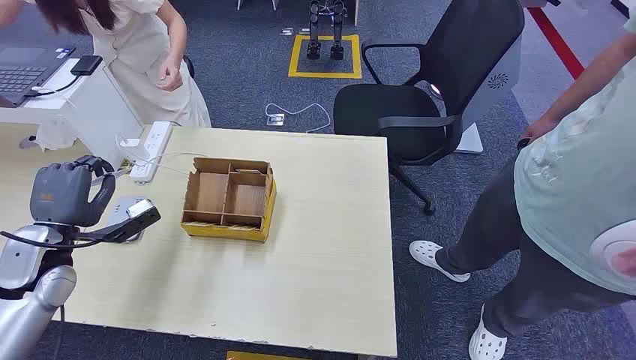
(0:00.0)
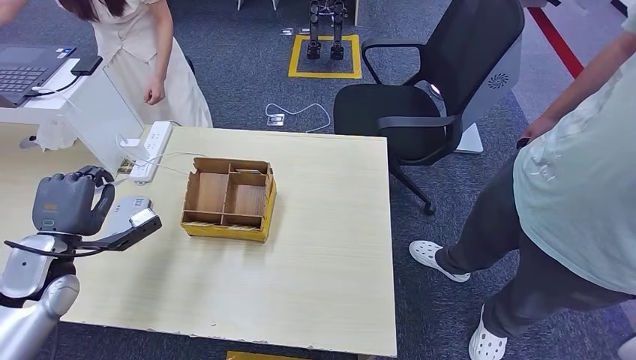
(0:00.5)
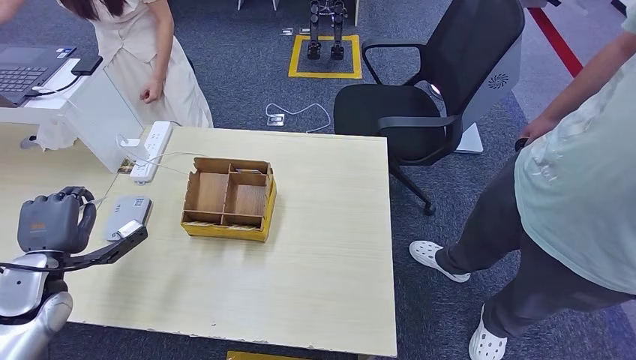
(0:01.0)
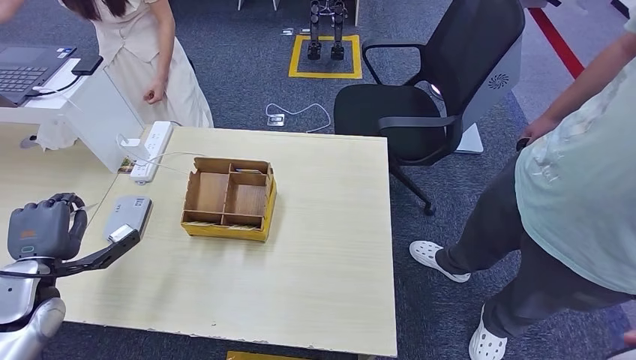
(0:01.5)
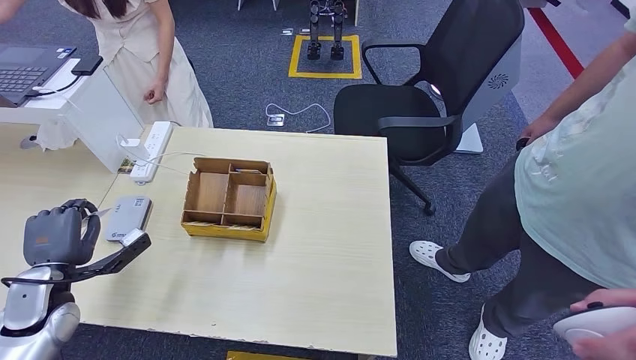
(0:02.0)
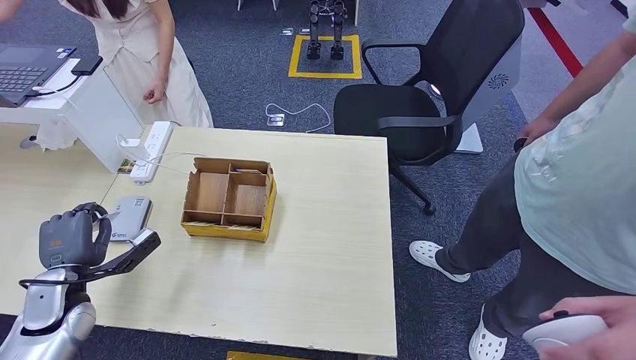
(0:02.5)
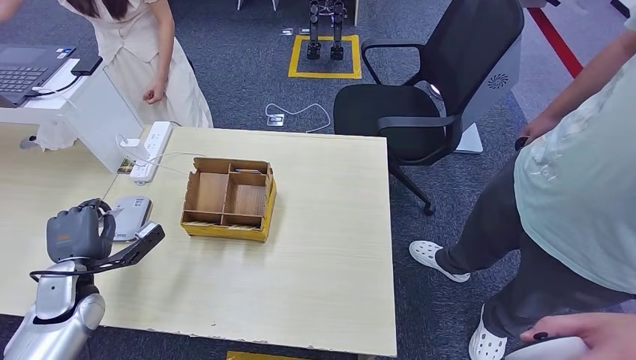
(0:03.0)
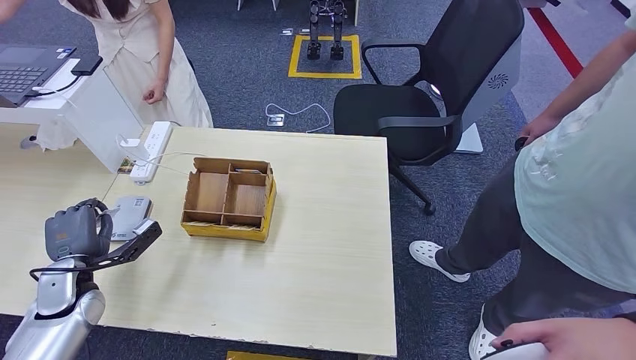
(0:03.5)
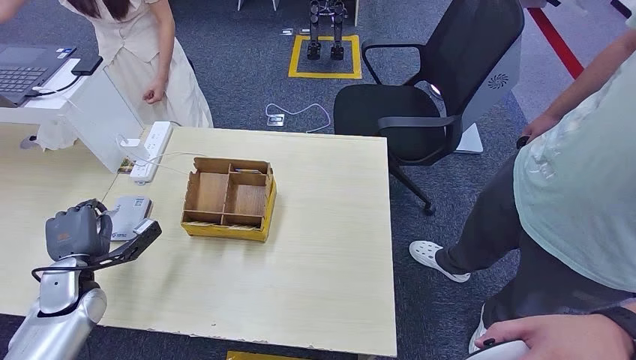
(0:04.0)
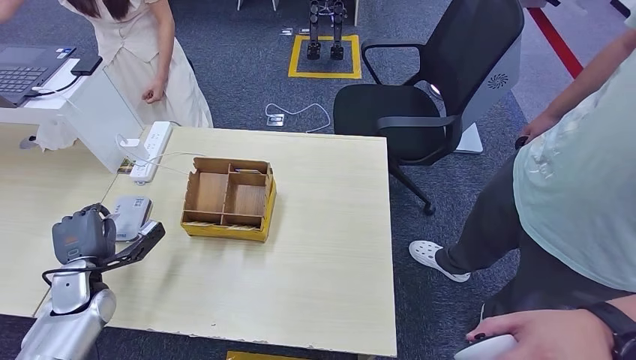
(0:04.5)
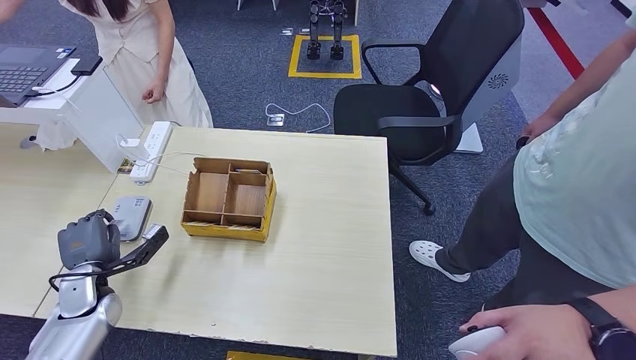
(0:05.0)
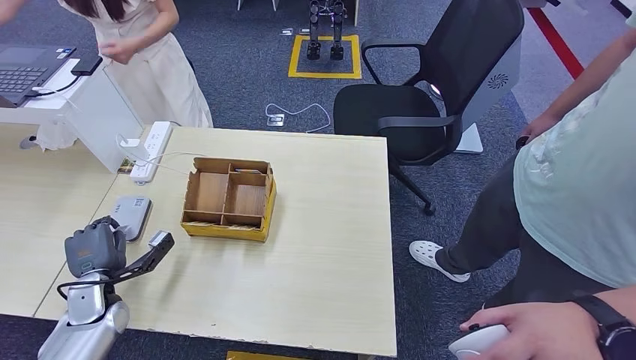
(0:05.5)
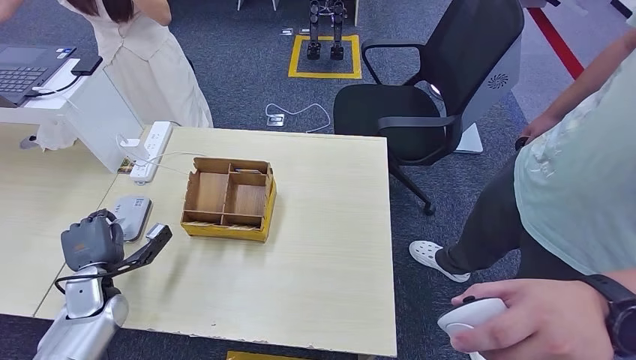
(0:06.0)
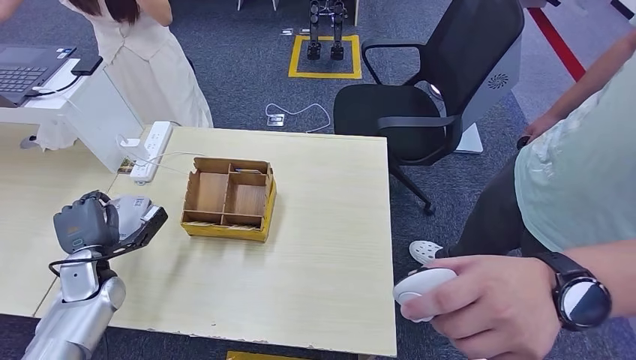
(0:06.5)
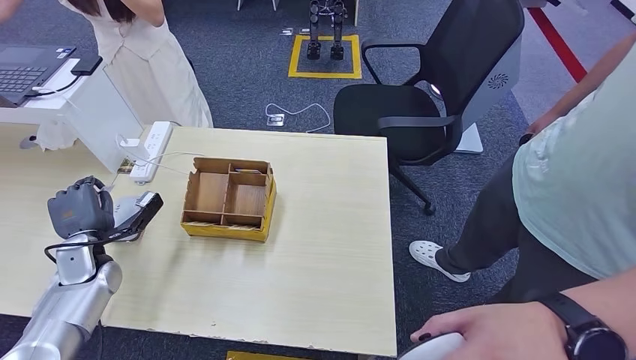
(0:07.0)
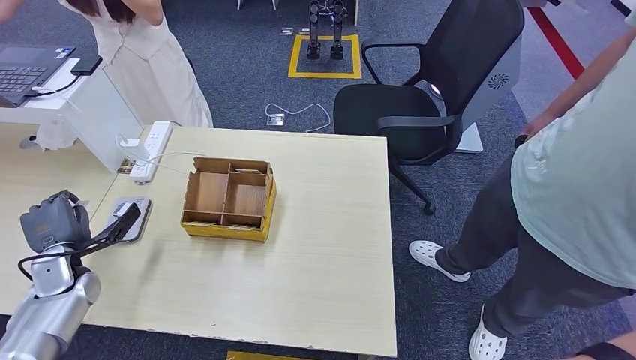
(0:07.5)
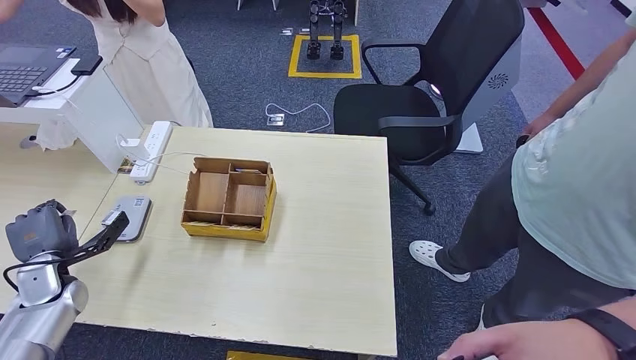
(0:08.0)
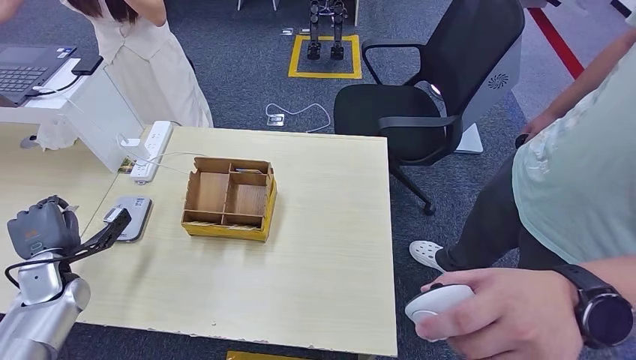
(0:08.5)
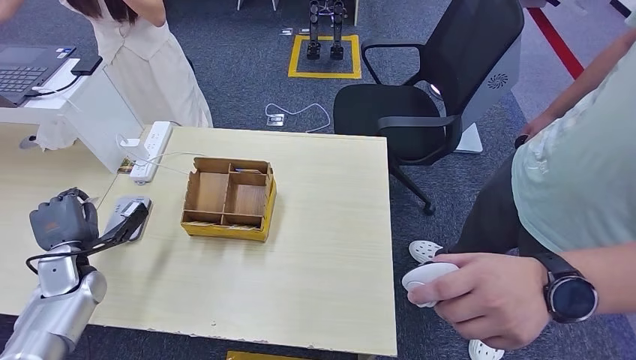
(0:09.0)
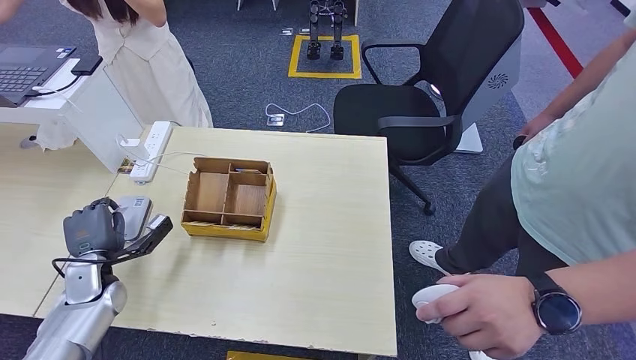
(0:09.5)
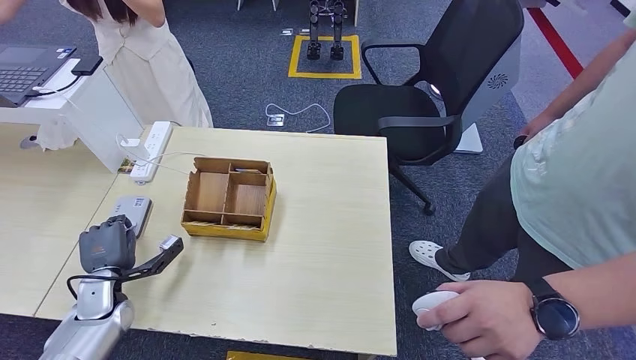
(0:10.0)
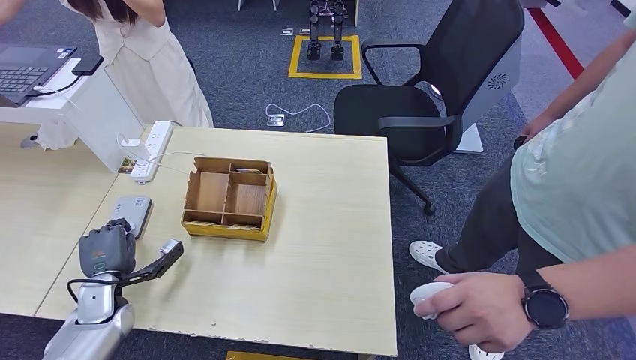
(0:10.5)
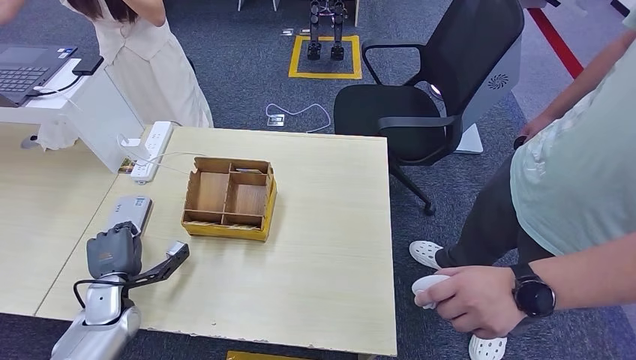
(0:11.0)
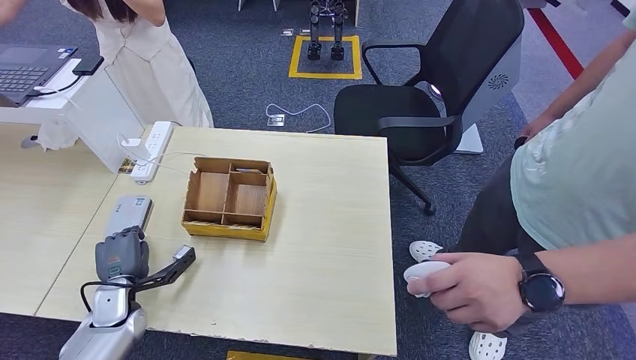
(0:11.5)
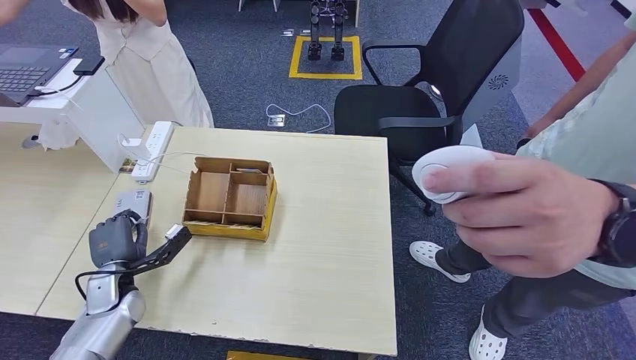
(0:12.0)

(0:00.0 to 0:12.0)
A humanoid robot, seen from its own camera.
Step, 0:00.0 - 0:01.0: Take the ID card from the person's hand.
Step, 0:01.5 - 0:07.0: Place the ID card on the card reader.
0:02.0 - 0:04.0: The hands move only a little.
0:04.0 - 0:06.0: The hands stay close to where they were, moving slightly.
0:06.0 - 0:08.0: The left hand goes some 5 cm to the left.
0:08.0 - 0:10.0: The left hand moves to the right, approximately 10 cm.
0:10.0 - 0:12.0: The hands move only a little.

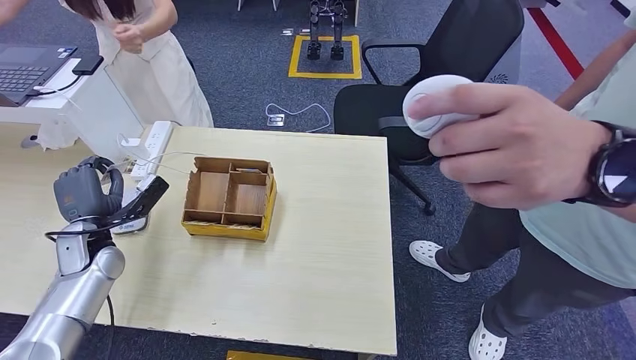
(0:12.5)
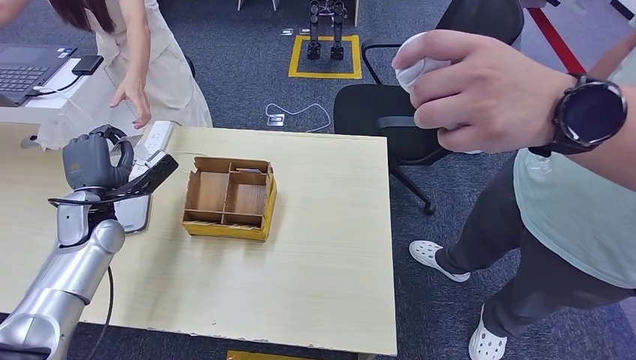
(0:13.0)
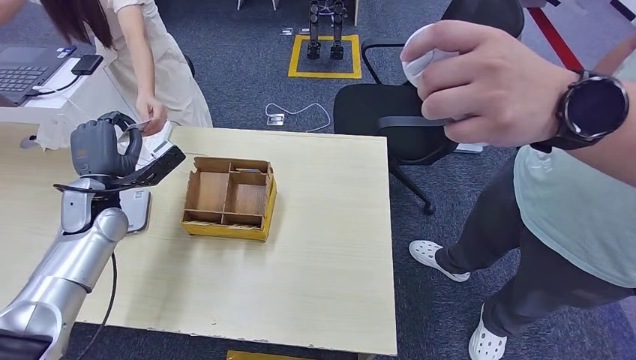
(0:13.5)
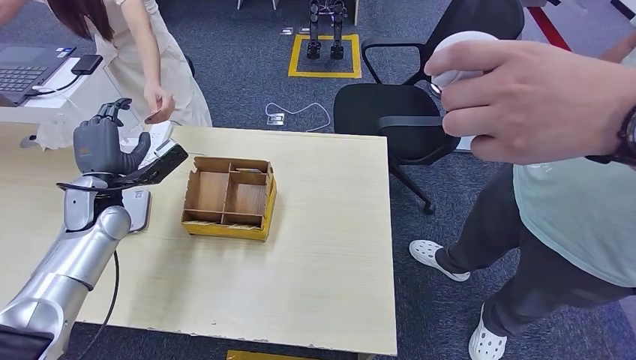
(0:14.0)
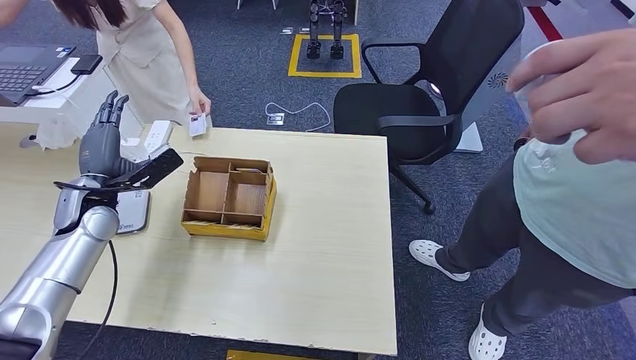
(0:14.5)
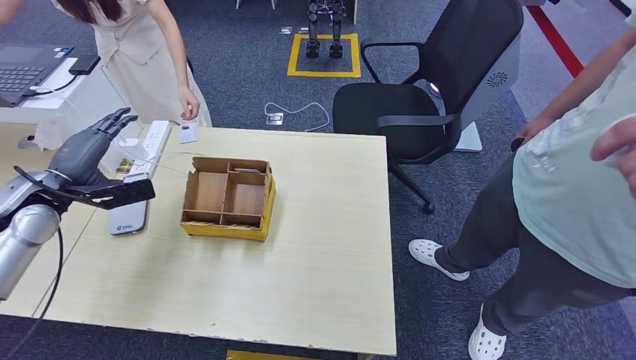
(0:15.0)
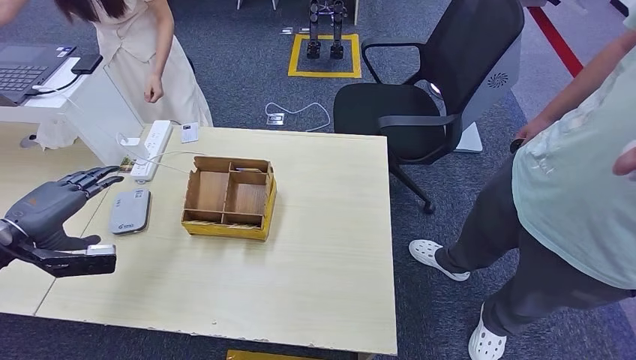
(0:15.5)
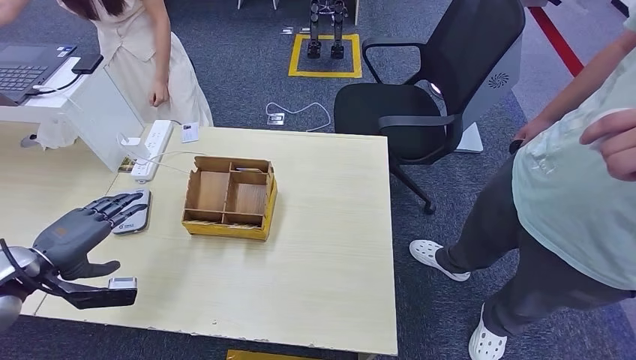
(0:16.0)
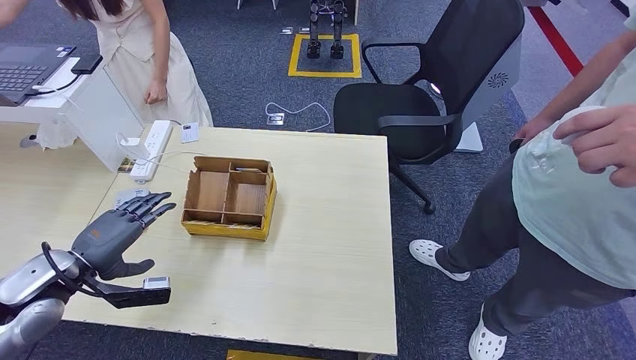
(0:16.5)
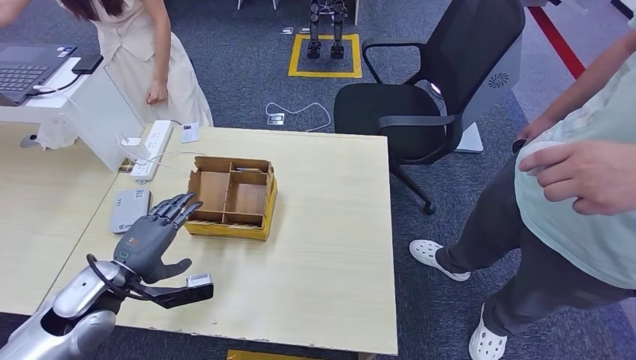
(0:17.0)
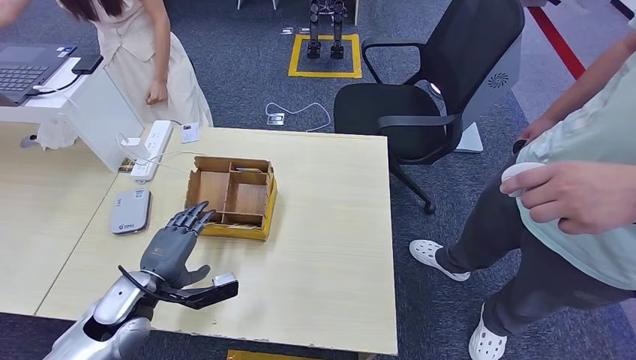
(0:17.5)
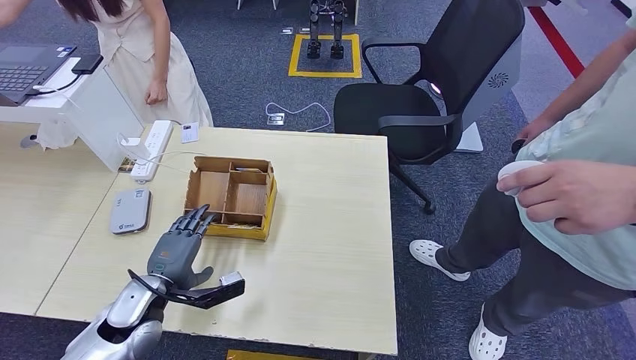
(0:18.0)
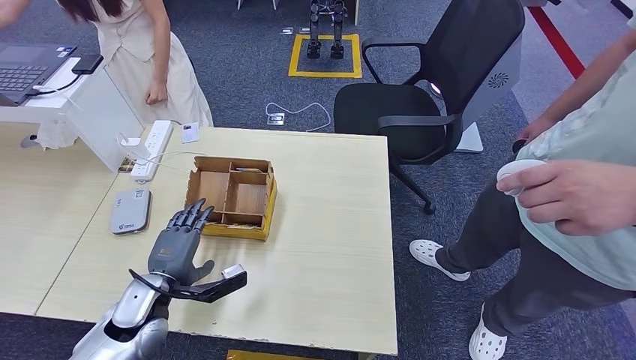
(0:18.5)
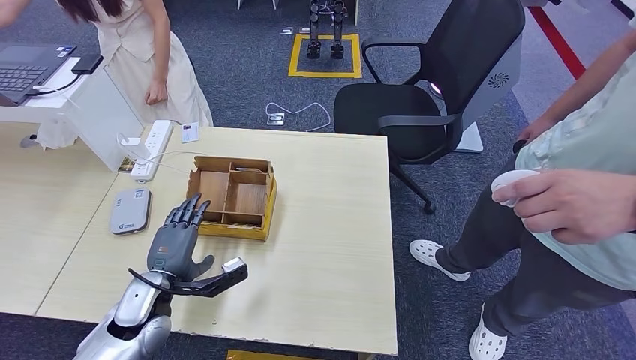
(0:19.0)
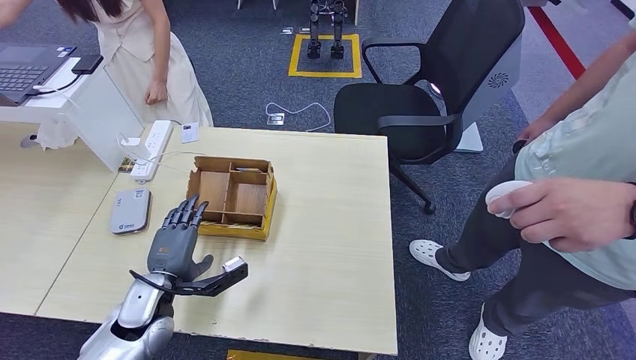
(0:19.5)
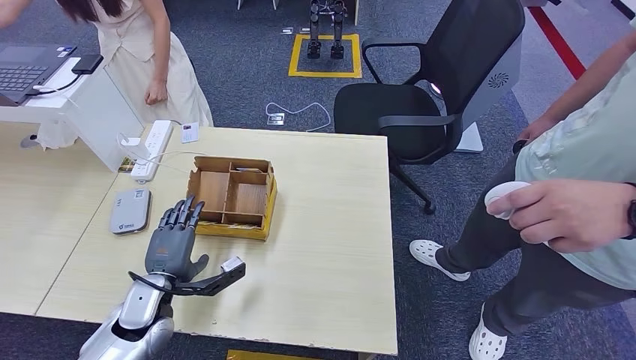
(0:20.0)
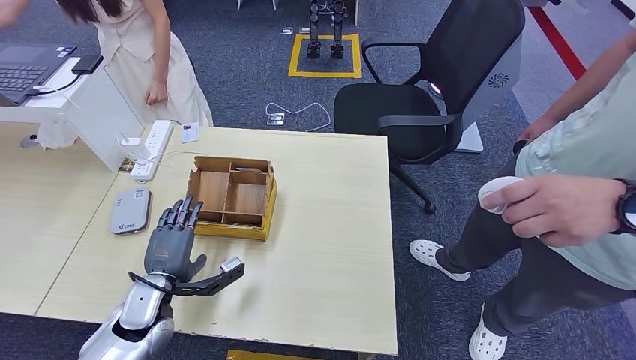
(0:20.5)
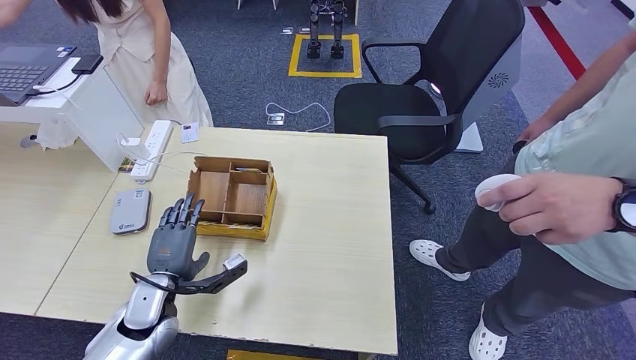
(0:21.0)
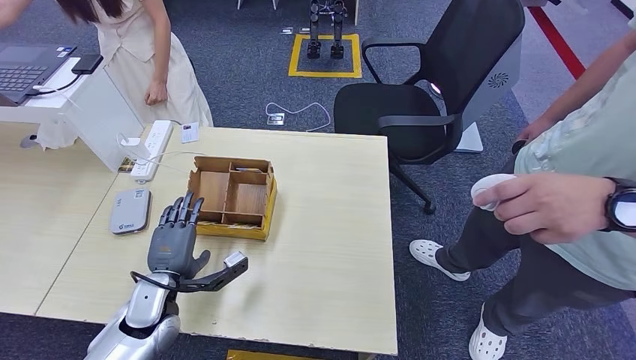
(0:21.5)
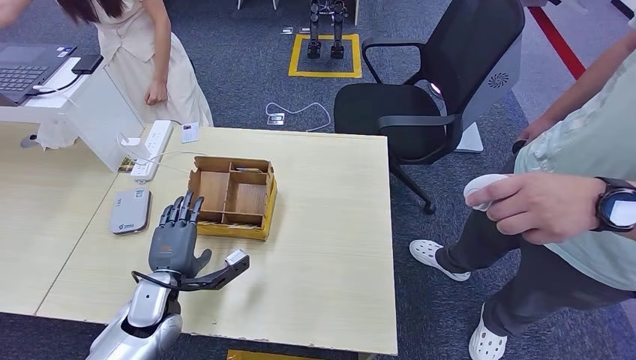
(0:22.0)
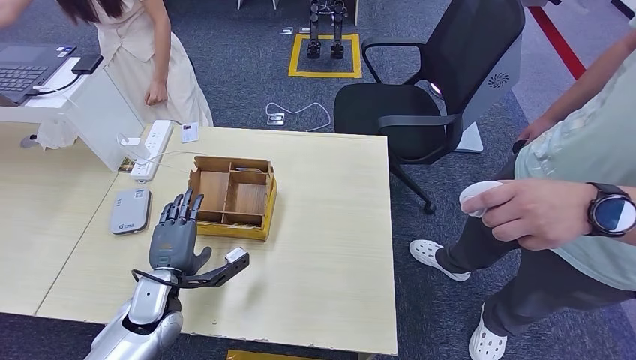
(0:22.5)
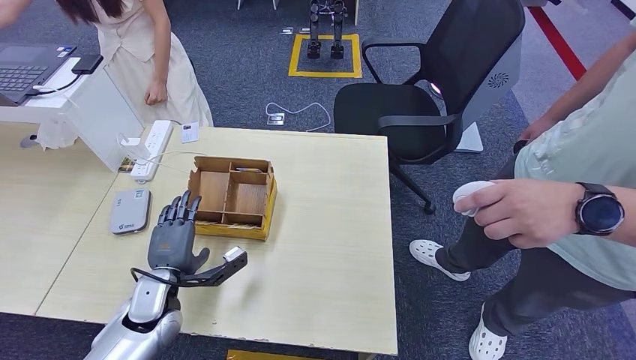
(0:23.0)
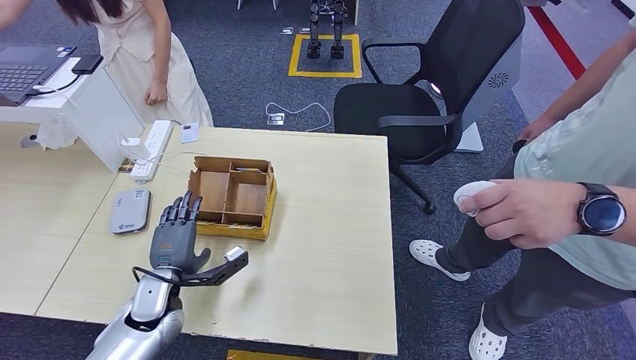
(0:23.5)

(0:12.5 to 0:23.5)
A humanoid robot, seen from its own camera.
0:14.5 - 0:16.0: The left hand moves backward and to the left, approximately 15 cm.
0:16.0 - 0:18.0: The left hand goes roughly 20 cm to the right and downward.
0:18.0 - 0:20.0: The hands move only a little.
0:20.0 - 0:21.5: The two hands keep their place.
0:21.5 - 0:23.5: Neither hand changes place.
